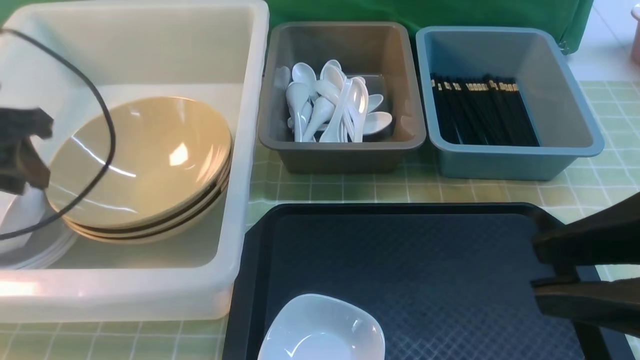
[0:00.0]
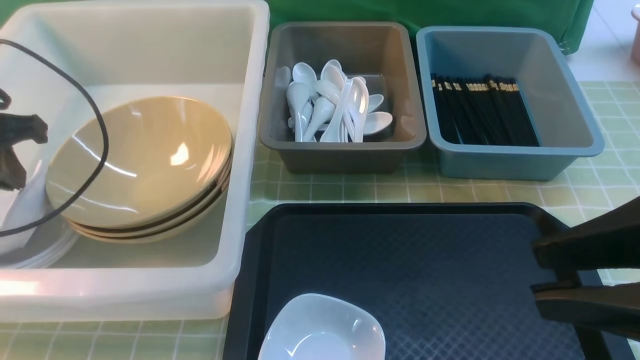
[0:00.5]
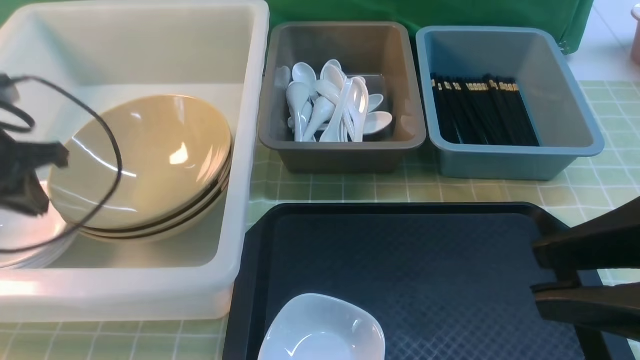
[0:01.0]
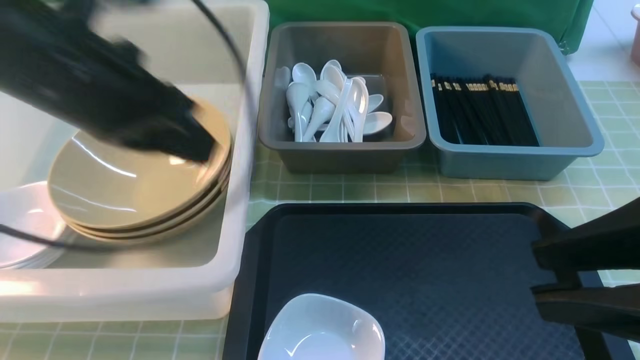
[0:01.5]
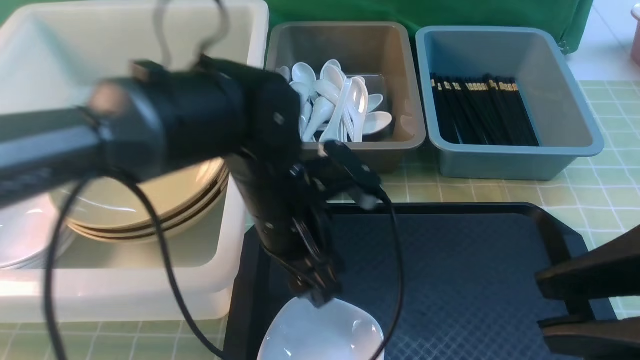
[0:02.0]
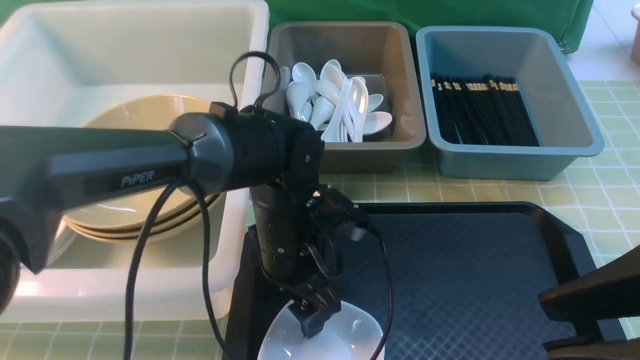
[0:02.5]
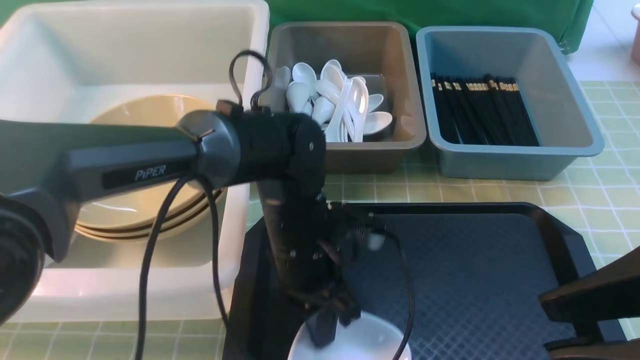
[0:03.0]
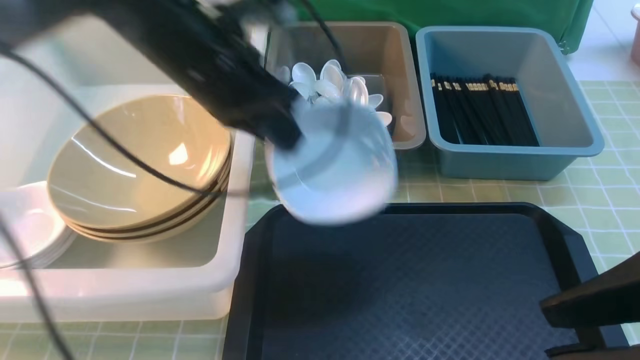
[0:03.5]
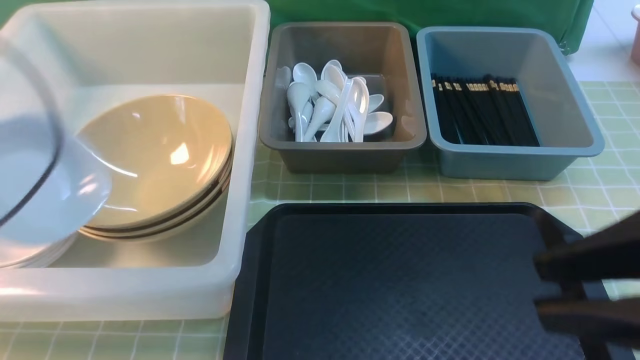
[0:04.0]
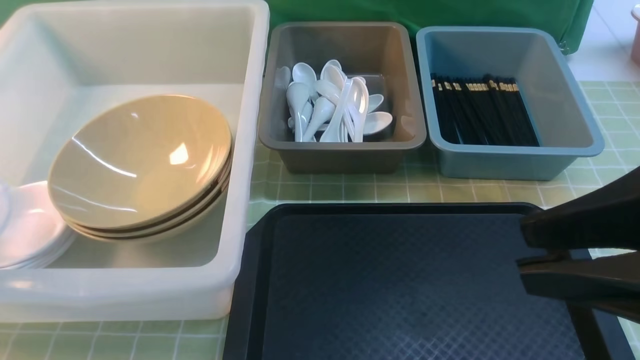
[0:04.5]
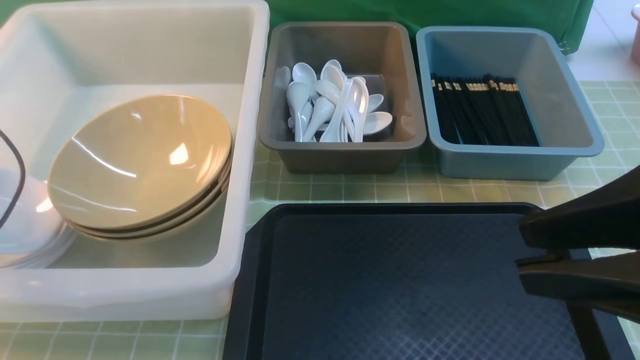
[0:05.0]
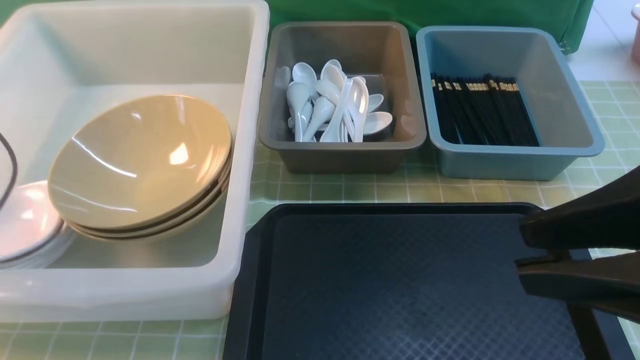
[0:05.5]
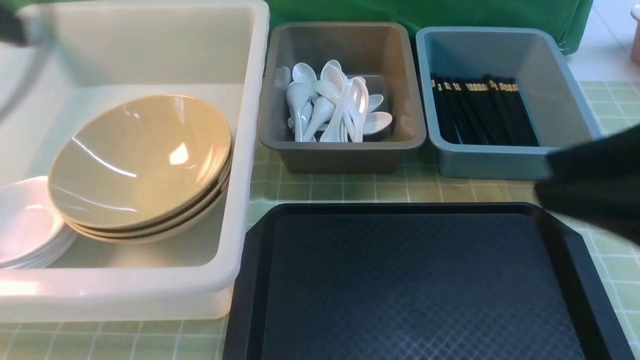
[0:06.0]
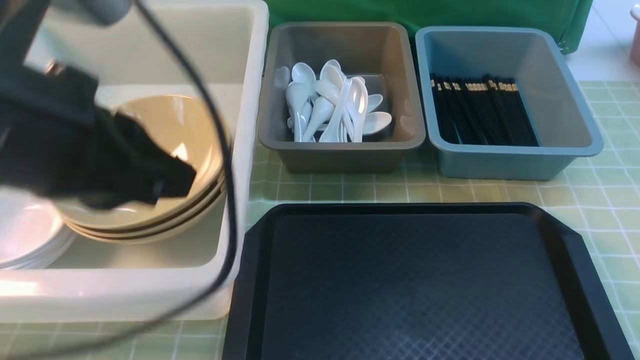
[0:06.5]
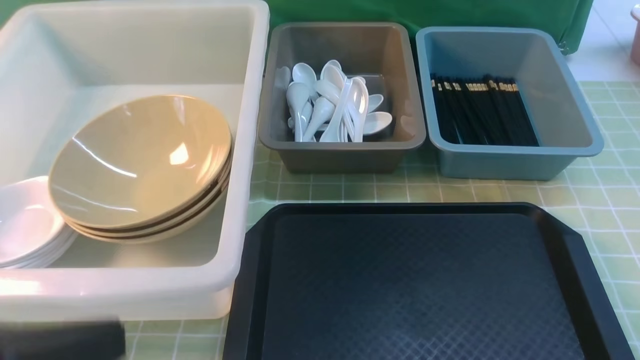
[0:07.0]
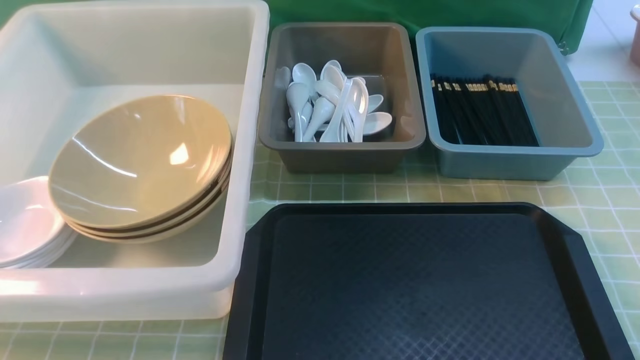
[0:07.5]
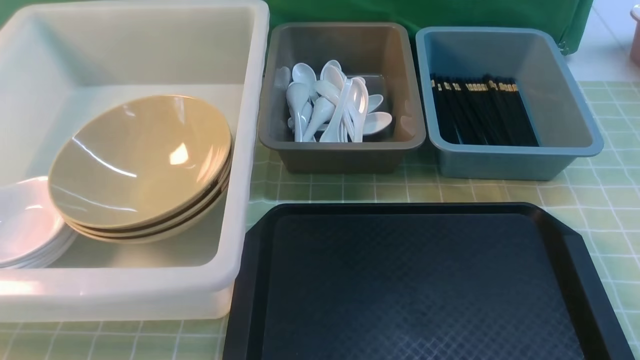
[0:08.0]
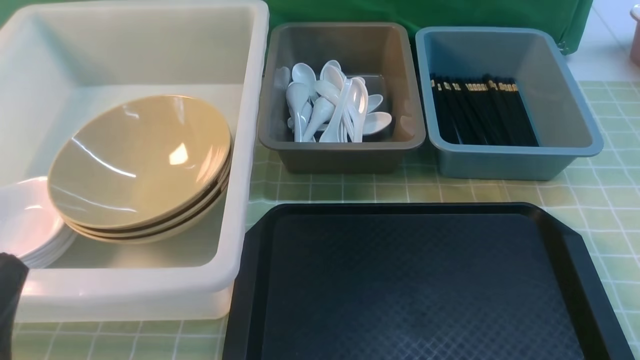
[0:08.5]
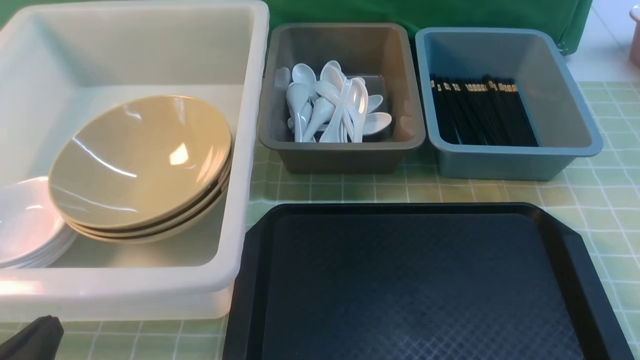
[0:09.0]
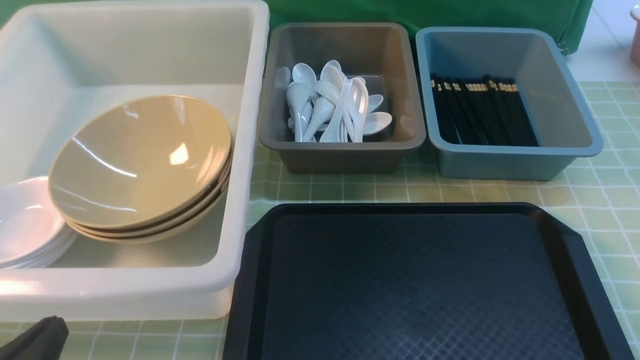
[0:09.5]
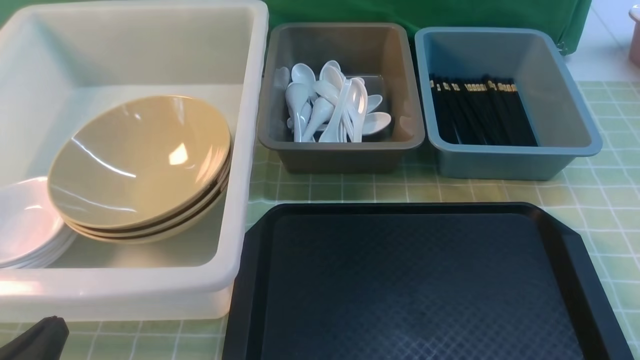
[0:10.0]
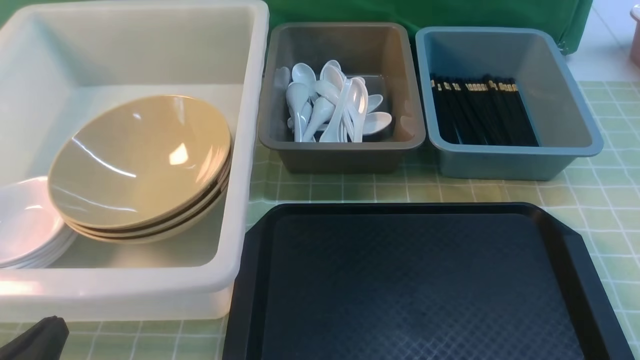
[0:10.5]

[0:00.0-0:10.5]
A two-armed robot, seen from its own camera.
Task of the whole recording: on green table put chopsticks spoon bowls plates into blue grey white boxes.
Step, 0:01.5 to 0:03.0: use the left arm to grab the plate.
Step, 0:03.5 to 0:05.5: use the left arm to put the plate into the large storage box on the left.
0:00.0 to 0:02.0: The left gripper is displaced to the right by some 30 cm, and opens its fingers.
0:02.0 to 0:04.0: The left gripper travels to the left by some 30 cm, and closes.
0:04.0 to 0:06.5: The left gripper heads to the right and backward, covering some 20 cm, and opens, then closes again. The right gripper moves to the right, roughly 5 cm.
0:06.5 to 0:08.5: The left gripper shifts some 20 cm downward, backward and to the left; the right gripper moves downward and backward, roughly 15 cm.
0:08.5 to 0:10.5: The left gripper moves downward, some 5 cm.

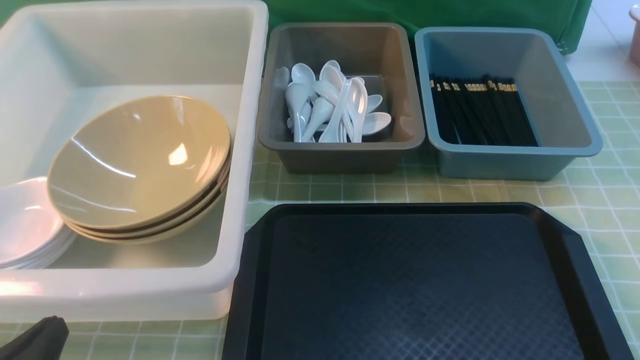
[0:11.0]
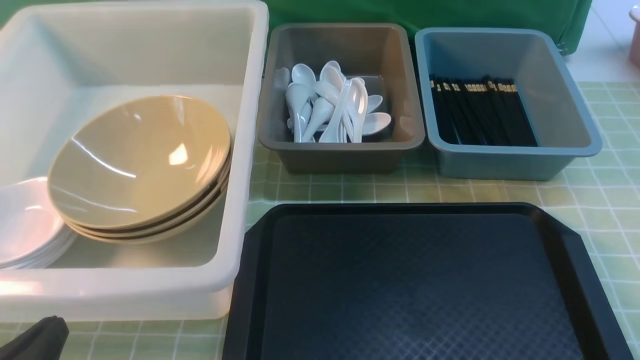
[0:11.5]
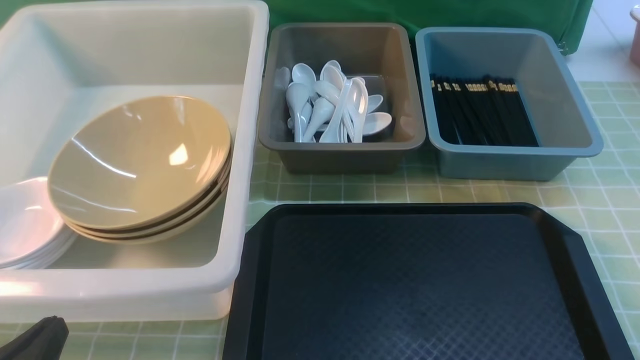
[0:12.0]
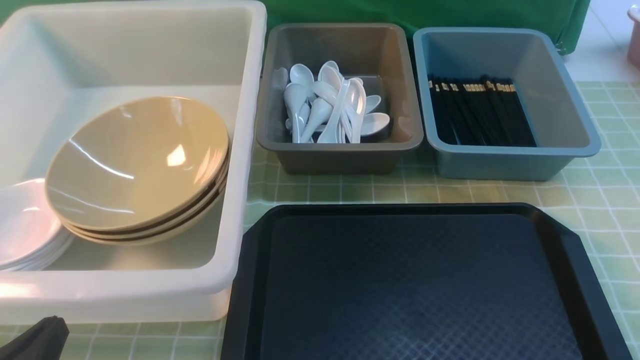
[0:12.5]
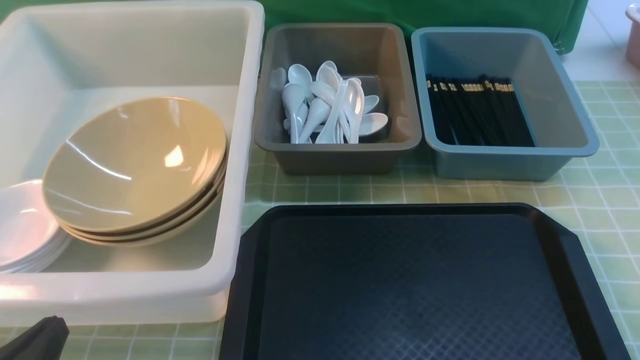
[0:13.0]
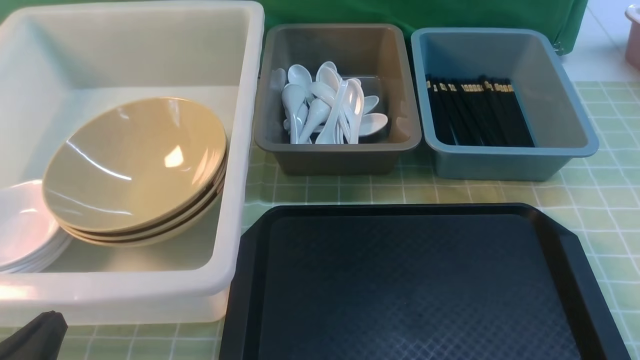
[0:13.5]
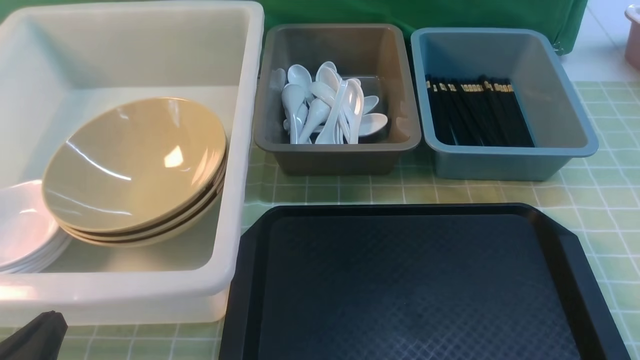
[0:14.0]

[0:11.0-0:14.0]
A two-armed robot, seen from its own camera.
Task of the whole recording: on green table put chopsticks spoon bowls plates into blue grey white boxes.
0:11.0 to 0:12.5: The grippers make only small movements.
0:12.5 to 0:14.0: Neither gripper changes place.
